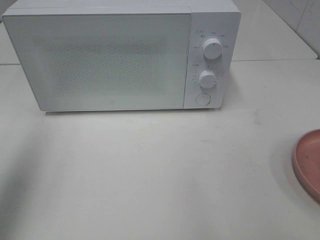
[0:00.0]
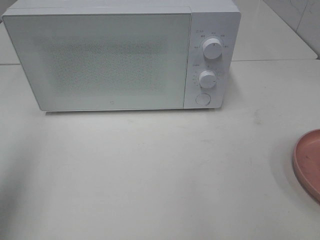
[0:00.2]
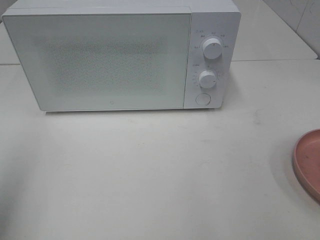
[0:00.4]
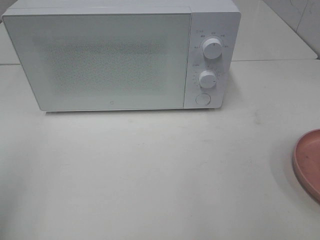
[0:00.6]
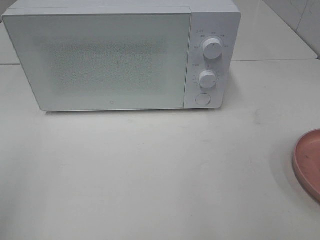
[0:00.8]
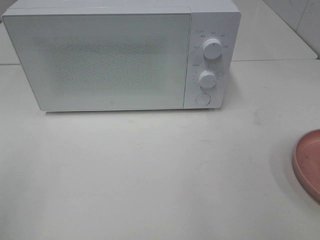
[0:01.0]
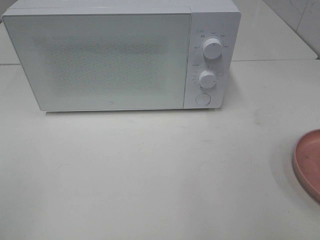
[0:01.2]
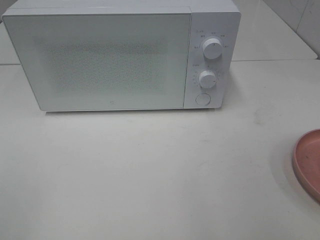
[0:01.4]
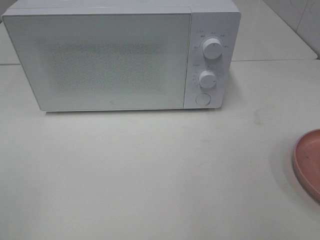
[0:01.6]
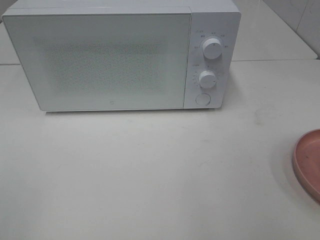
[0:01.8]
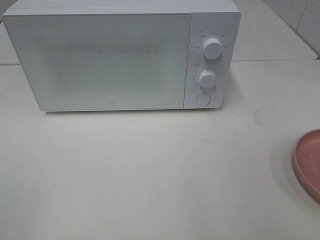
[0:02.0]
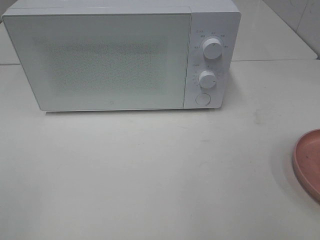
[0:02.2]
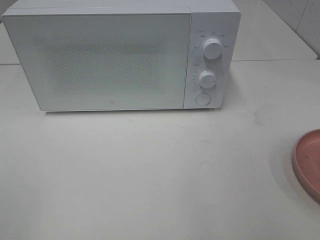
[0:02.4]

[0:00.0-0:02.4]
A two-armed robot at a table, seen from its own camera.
Task of the whole recording: Heat the burger.
0:00.0 to 0:01.2: The left gripper moves backward, approximately 20 cm.

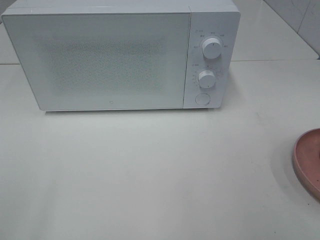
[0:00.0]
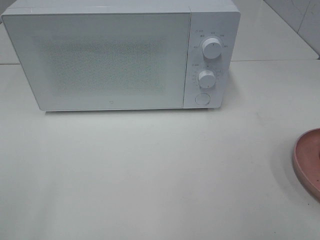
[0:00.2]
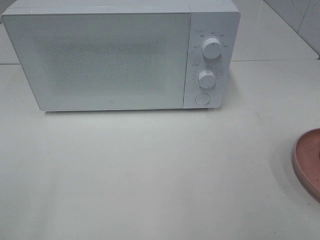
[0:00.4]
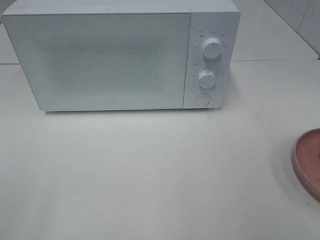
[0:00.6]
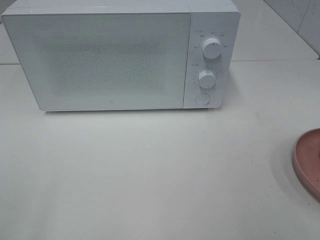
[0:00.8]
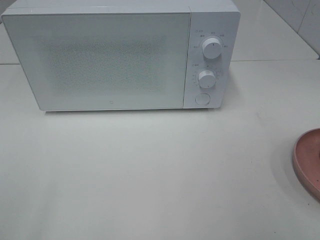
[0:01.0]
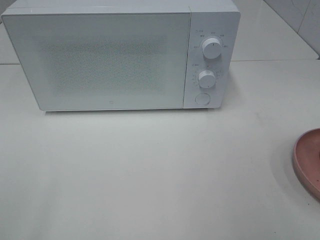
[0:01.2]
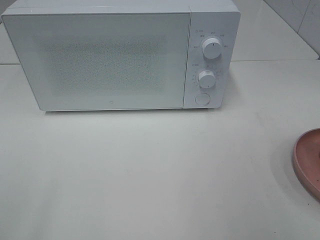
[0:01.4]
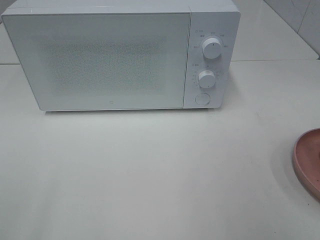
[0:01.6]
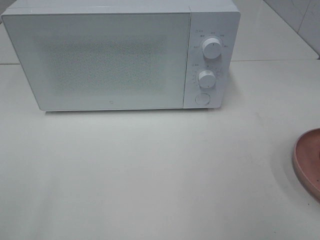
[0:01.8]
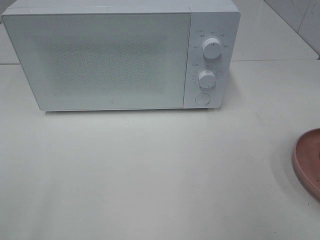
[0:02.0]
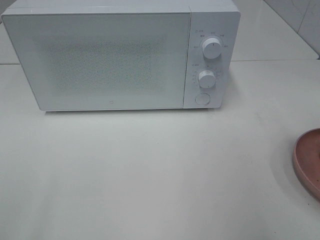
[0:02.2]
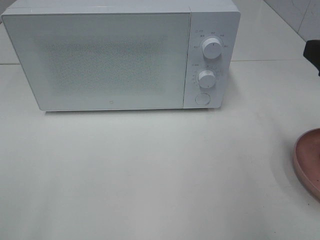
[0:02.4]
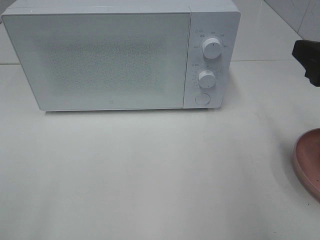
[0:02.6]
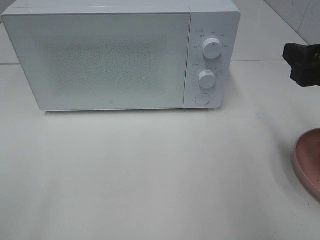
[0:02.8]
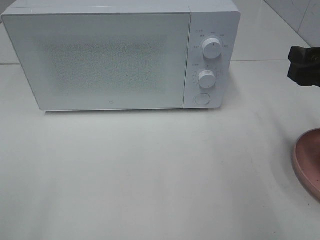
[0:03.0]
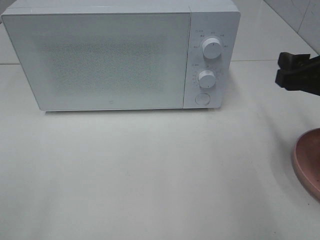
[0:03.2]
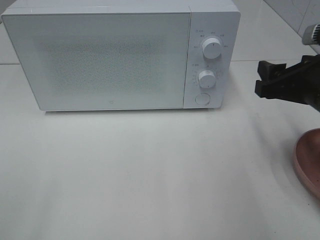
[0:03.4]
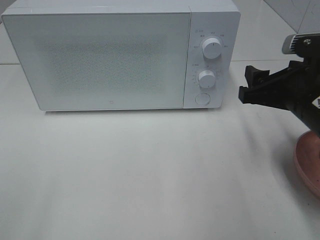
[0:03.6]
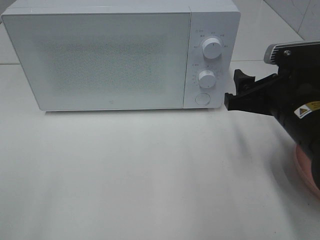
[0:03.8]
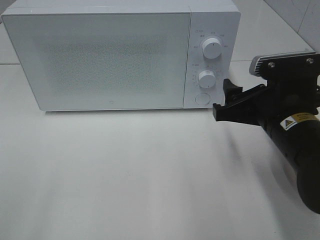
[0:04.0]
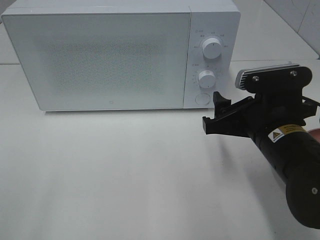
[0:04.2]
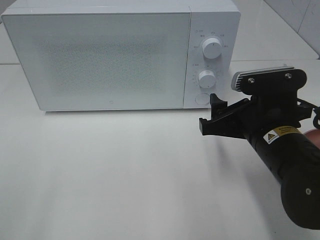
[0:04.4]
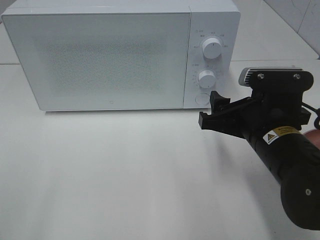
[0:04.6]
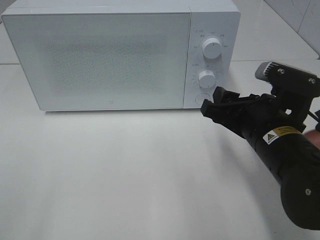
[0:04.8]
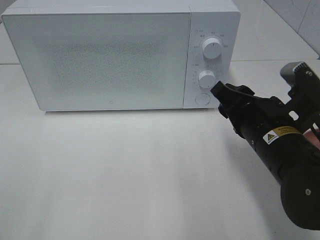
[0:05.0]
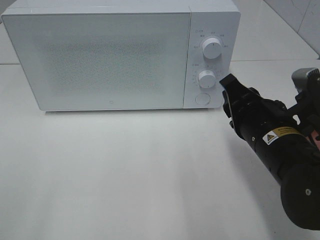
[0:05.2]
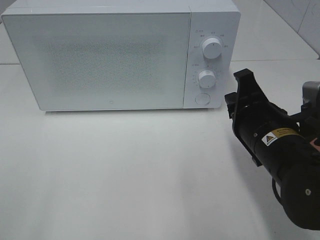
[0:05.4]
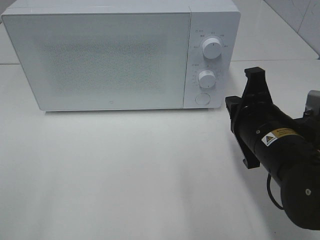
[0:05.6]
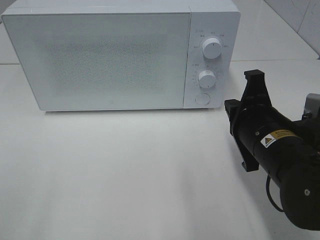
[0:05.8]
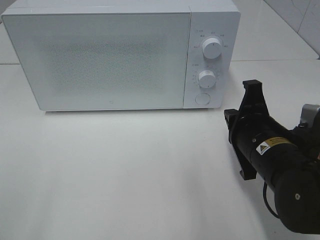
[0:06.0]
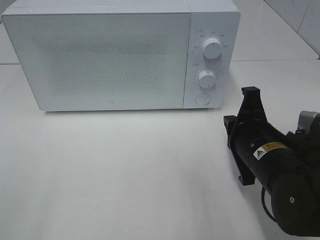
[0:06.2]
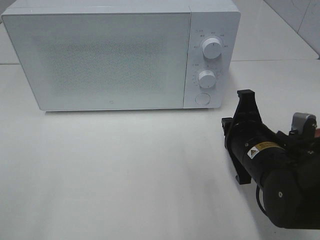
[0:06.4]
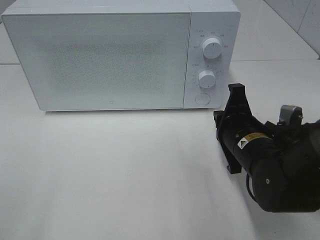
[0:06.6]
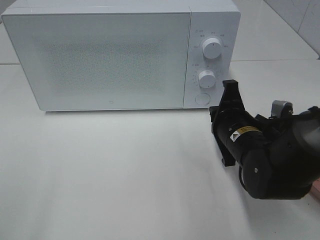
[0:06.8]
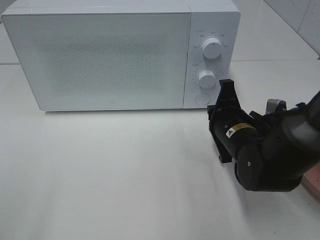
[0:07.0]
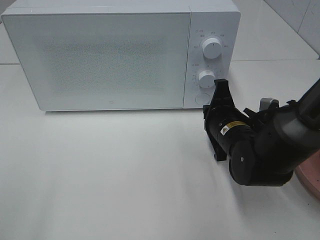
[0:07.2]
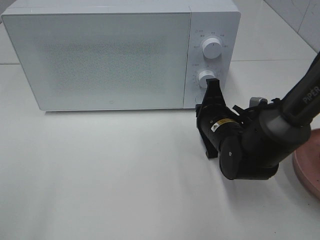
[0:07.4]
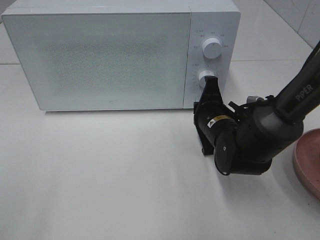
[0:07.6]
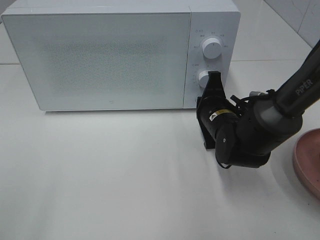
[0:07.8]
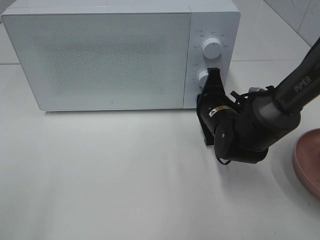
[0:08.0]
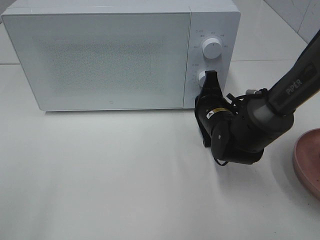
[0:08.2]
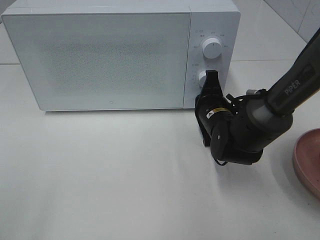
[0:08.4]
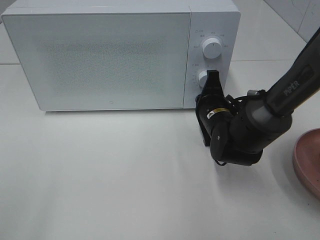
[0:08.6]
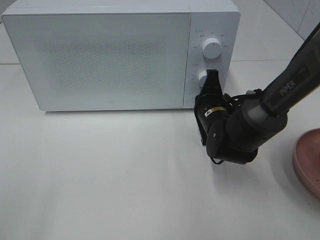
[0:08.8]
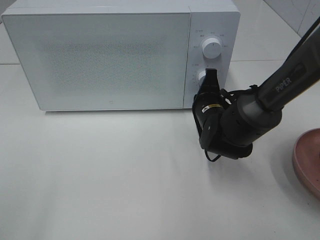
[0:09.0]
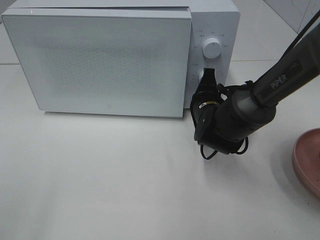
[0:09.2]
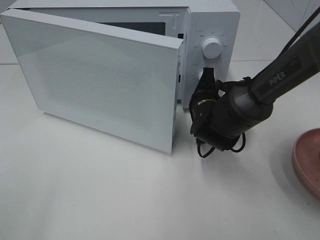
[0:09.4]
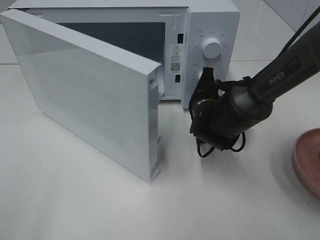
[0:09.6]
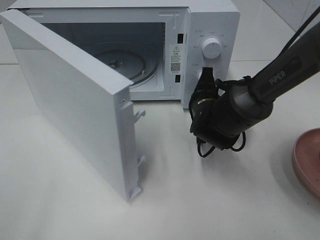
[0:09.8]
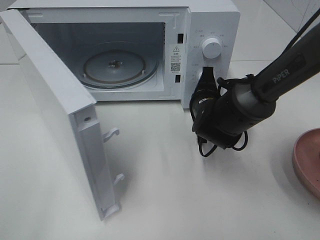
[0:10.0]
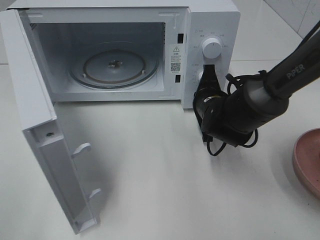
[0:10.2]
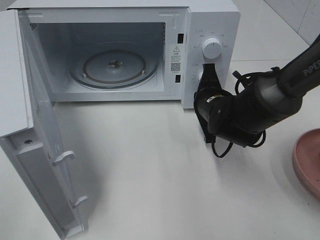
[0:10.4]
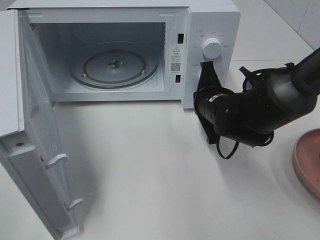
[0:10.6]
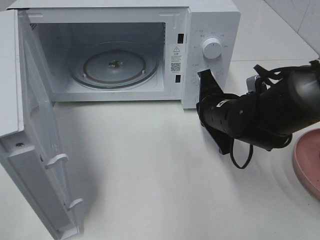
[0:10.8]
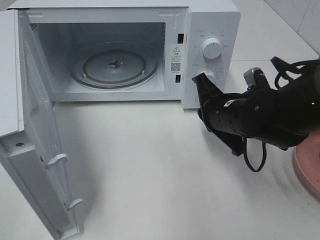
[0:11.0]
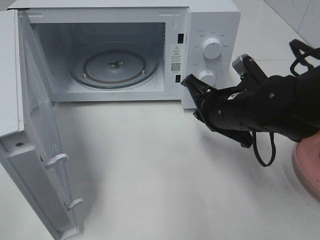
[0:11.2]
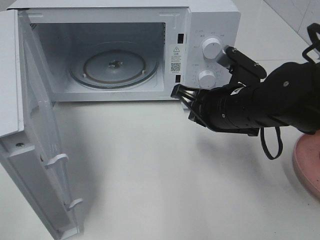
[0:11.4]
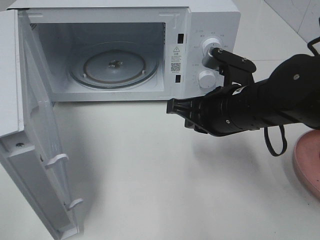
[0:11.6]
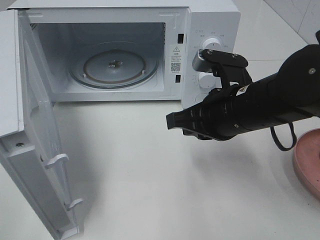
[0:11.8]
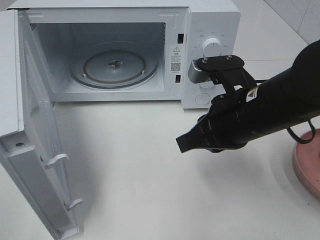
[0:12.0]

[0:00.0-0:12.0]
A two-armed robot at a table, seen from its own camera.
Task of the whole recording: Heat the burger.
Step, 0:00.0 to 0:10.4: Right hand: press the switch.
0:01.6 to 0:03.0: The right gripper moves forward and downward, some 15 cm.
0:03.0 to 0:04.4: The right gripper moves to the left and downward, roughly 15 cm.
0:04.4 to 0:06.0: The right gripper closes.
0:06.0 to 0:07.6: The right gripper moves forward and downward, about 10 cm.
0:07.6 to 0:09.0: The grippers stay close to where they were, moving slightly.
0:10.4 to 0:12.0: The right gripper shifts roughly 15 cm backward and upward.

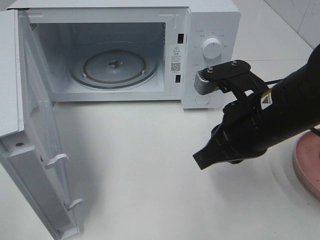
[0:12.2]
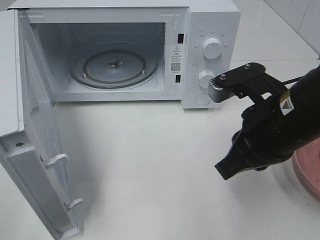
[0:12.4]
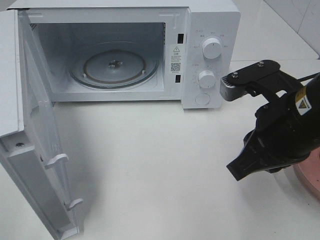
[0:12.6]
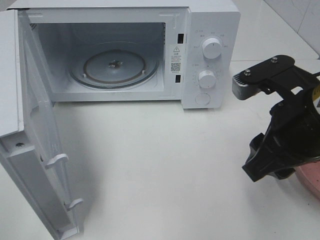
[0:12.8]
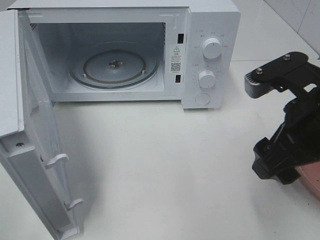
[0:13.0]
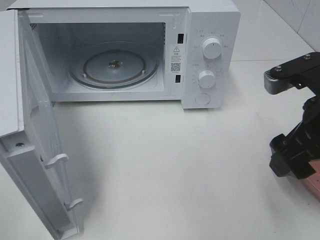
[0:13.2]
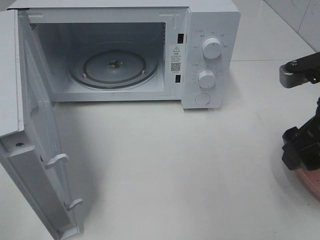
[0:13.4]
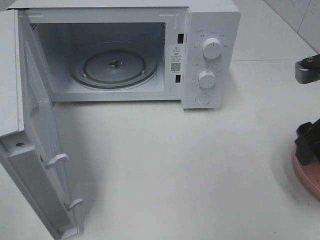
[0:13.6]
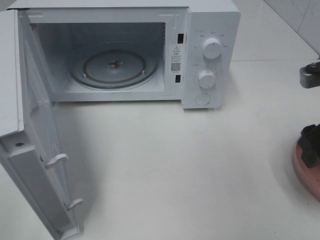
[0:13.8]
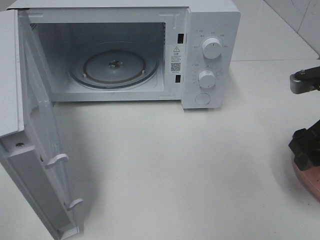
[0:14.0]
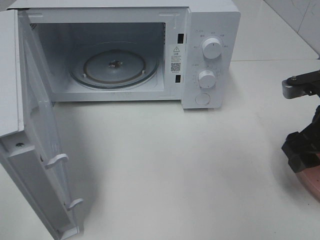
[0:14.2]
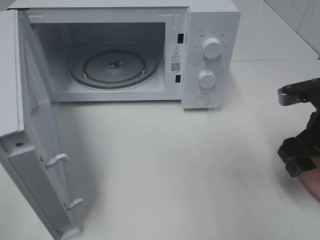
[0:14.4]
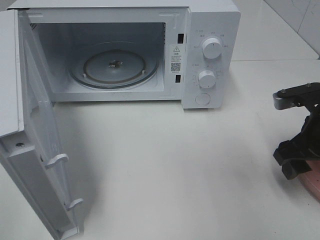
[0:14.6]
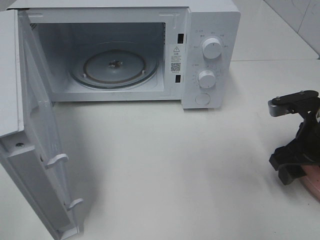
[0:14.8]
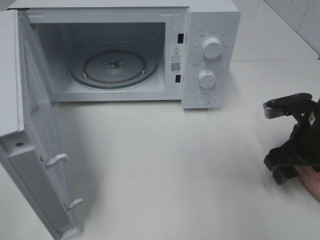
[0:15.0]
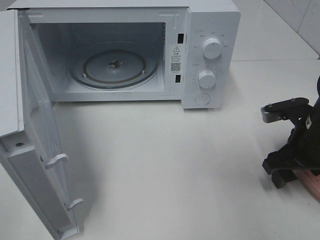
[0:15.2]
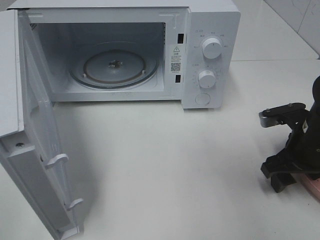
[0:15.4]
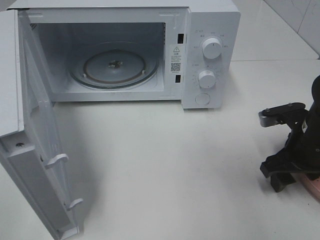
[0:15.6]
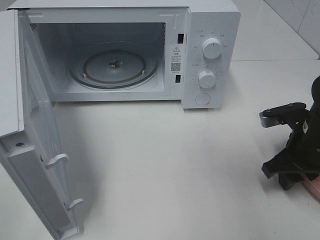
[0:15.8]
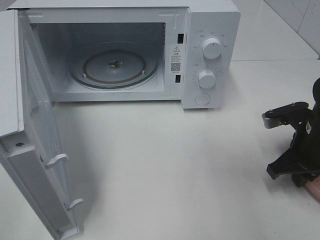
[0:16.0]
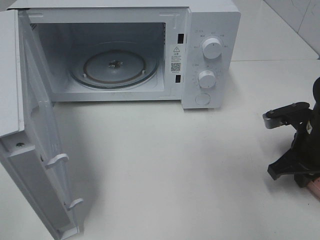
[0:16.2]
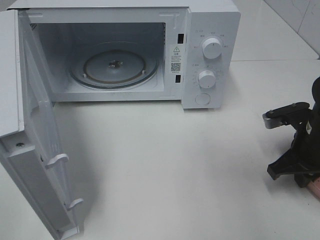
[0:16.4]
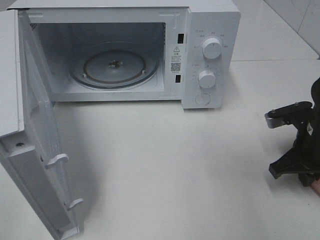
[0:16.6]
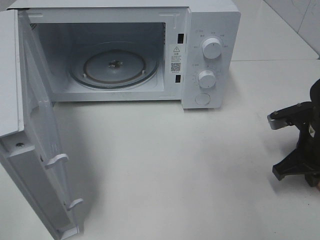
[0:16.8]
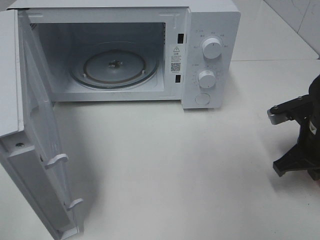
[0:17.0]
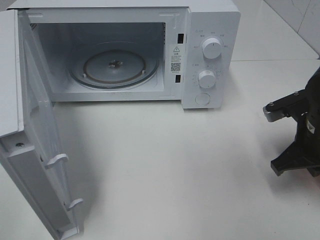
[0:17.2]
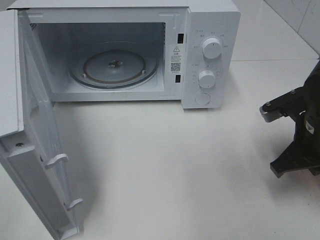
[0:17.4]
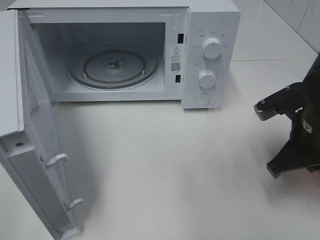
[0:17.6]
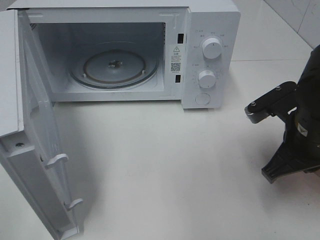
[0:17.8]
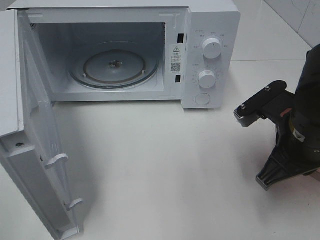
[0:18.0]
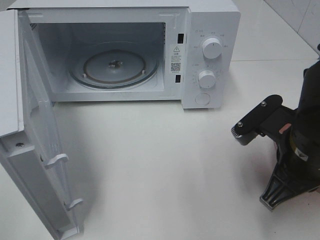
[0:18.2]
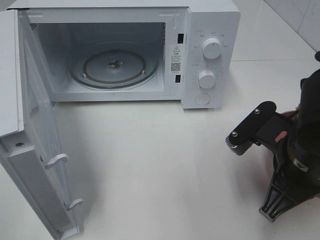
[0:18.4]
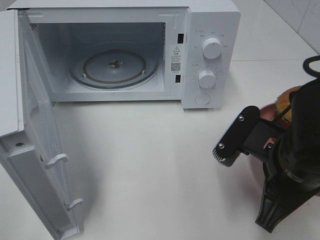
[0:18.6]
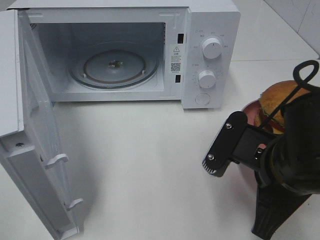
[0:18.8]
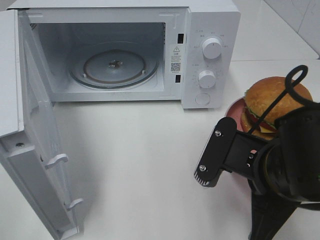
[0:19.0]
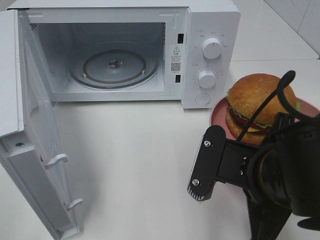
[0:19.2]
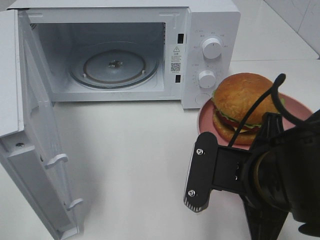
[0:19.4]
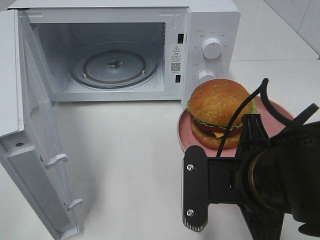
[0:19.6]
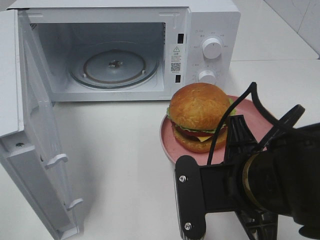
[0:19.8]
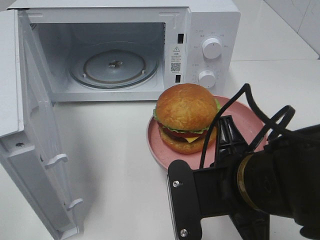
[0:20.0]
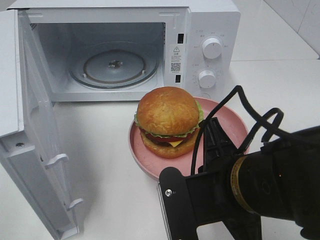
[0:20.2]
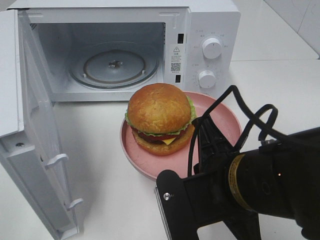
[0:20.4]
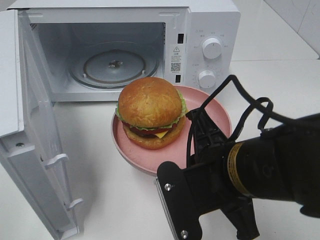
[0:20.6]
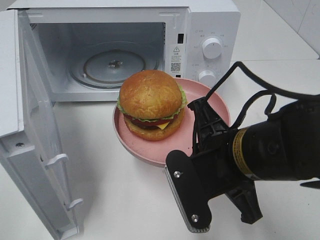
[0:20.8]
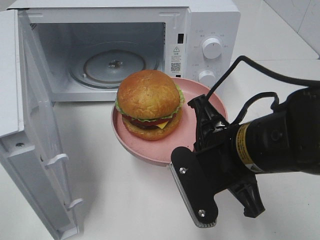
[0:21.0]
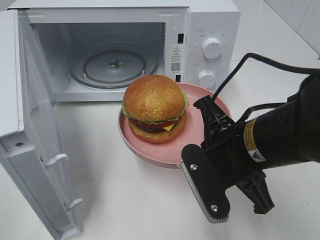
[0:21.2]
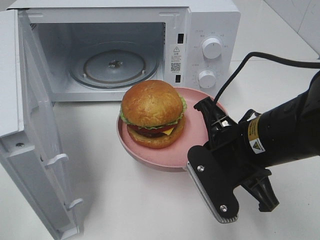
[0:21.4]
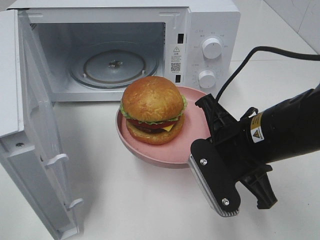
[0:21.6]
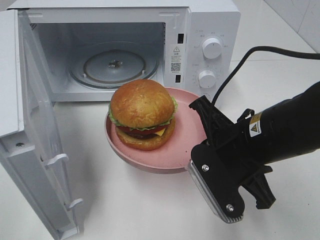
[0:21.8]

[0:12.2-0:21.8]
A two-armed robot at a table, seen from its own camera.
Task of the whole recording: Heat the burger.
Step, 0:12.2 to 0:16.2: Right hand: grab the plate with the hamburger.
0:12.2 to 0:13.8: The right gripper shifts roughly 10 cm to the right, and opens its fingers.
0:13.8 to 0:15.4: The right gripper travels downward by roughly 10 cm.
0:15.4 to 0:17.0: The right gripper closes its fingers.
0:17.0 to 0:18.6: The right gripper travels to the left and backward by roughly 15 cm.
0:18.6 to 0:20.2: The right gripper shifts roughly 5 cm to the left.
0:20.2 to 0:21.8: The right gripper travels forward by some 5 cm.
